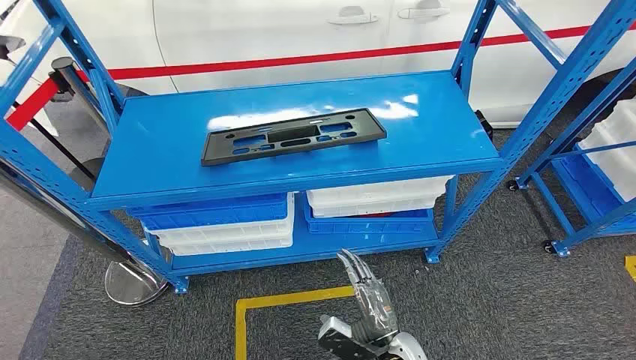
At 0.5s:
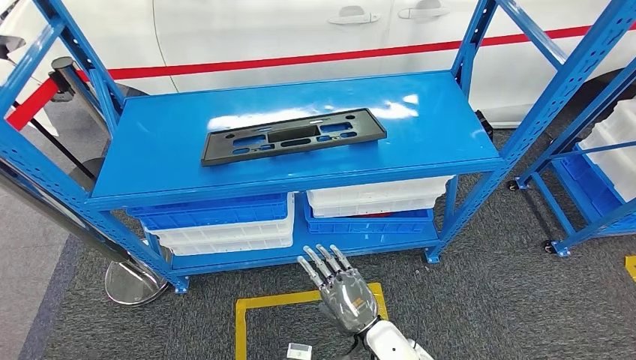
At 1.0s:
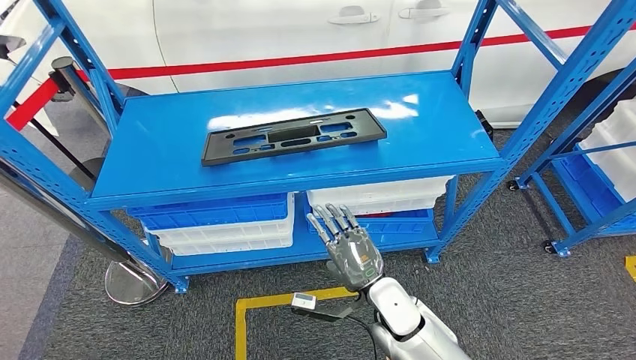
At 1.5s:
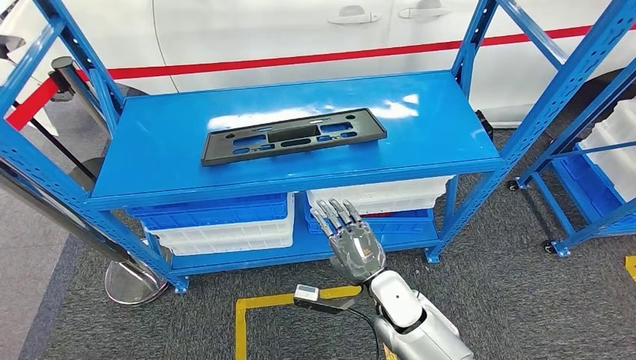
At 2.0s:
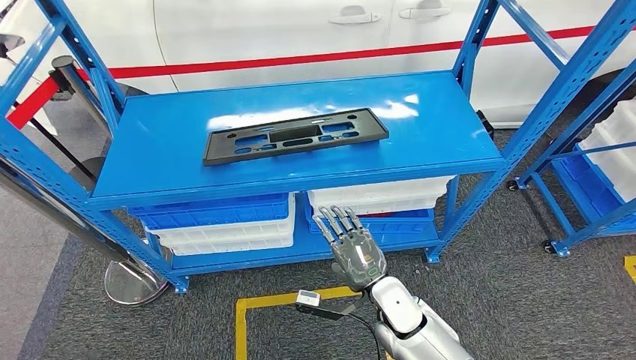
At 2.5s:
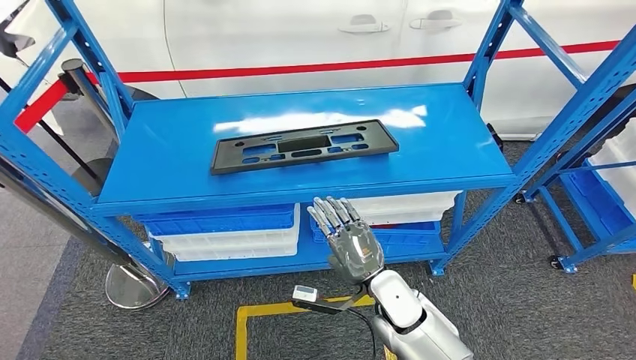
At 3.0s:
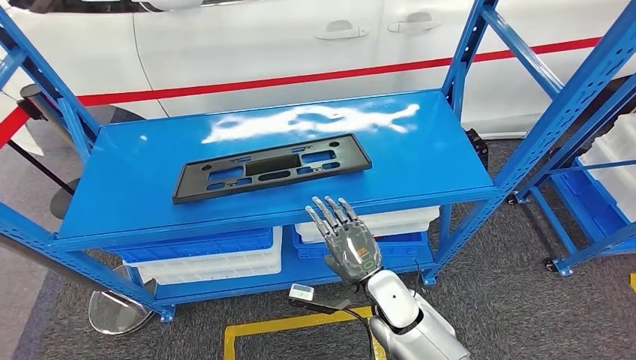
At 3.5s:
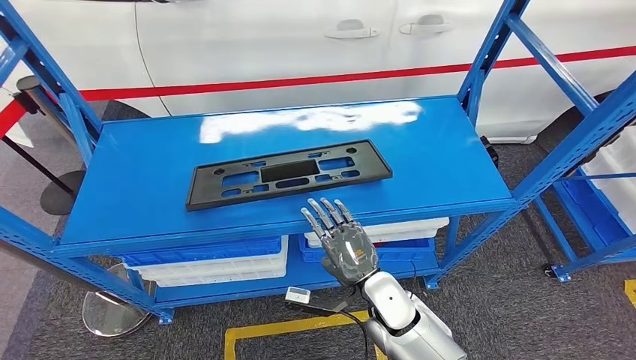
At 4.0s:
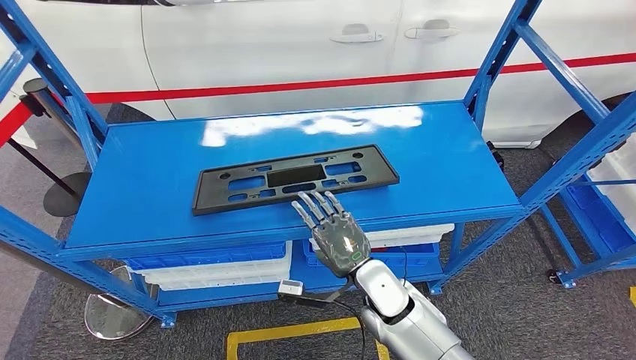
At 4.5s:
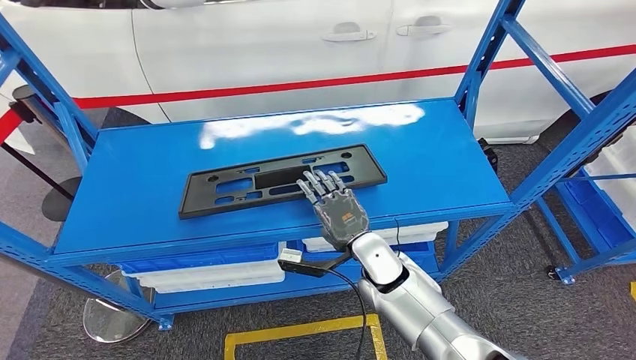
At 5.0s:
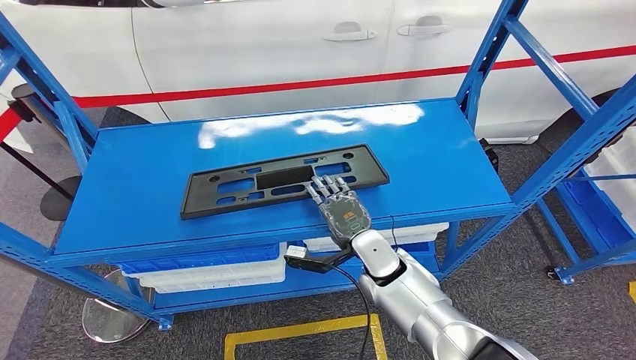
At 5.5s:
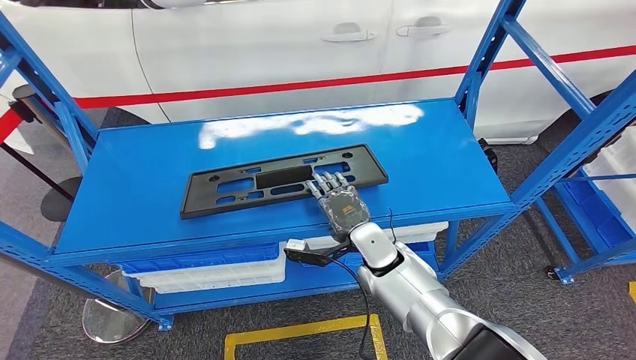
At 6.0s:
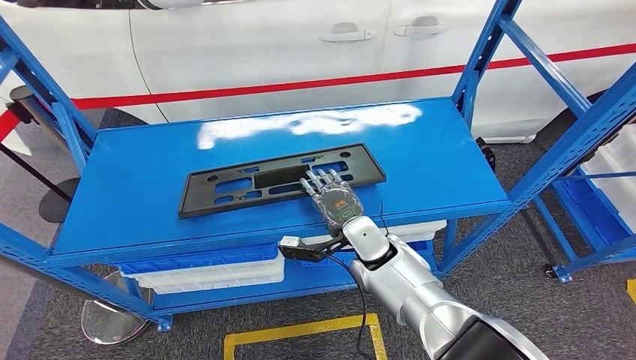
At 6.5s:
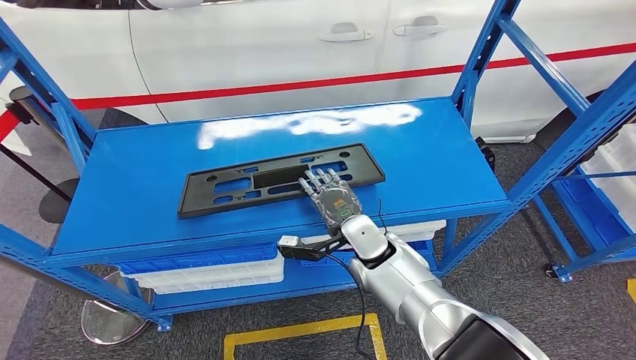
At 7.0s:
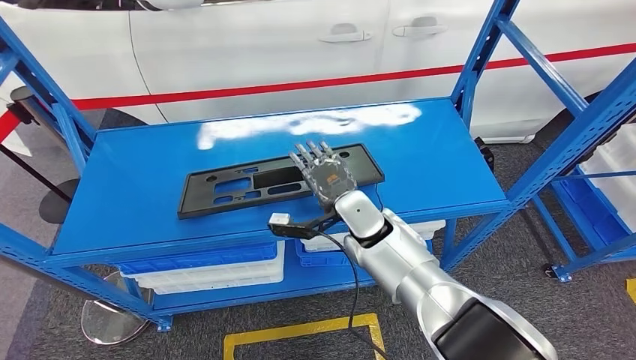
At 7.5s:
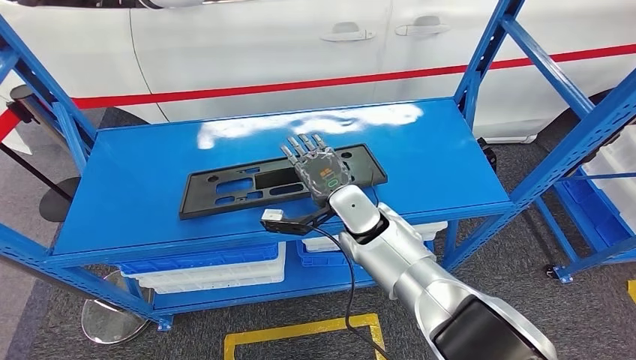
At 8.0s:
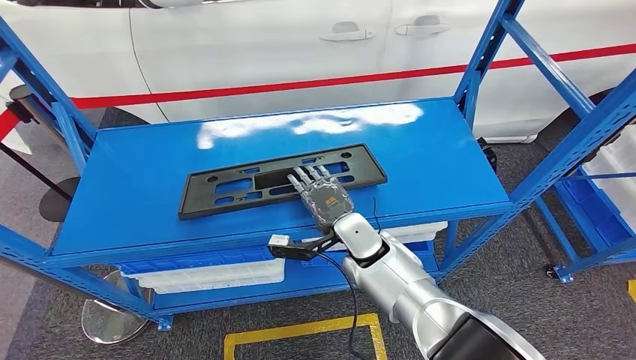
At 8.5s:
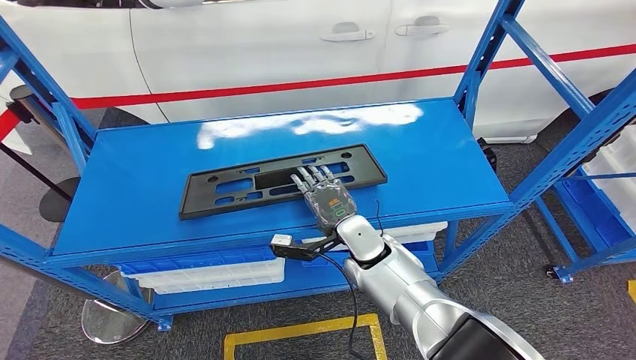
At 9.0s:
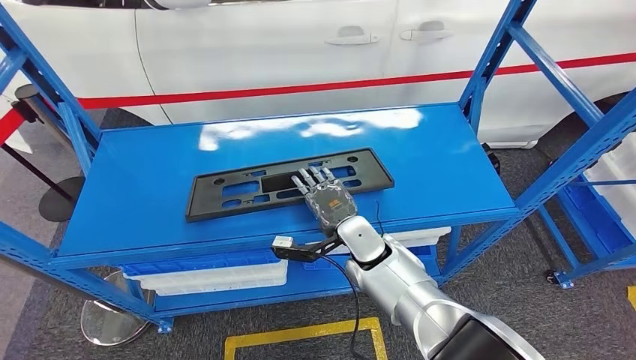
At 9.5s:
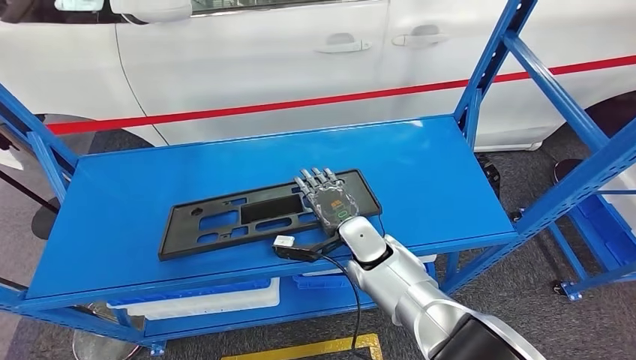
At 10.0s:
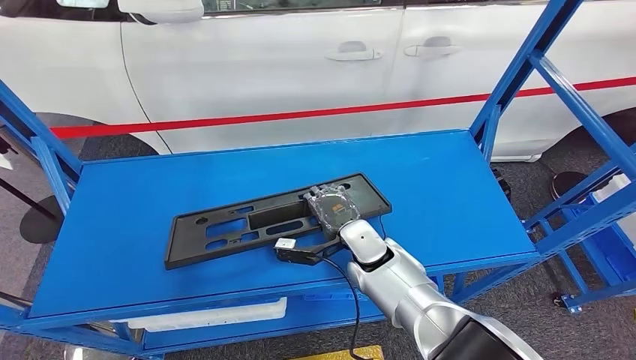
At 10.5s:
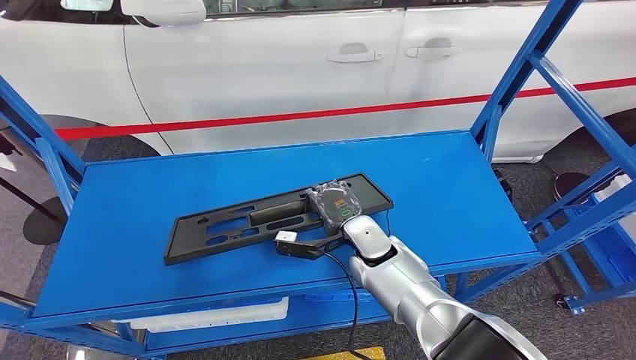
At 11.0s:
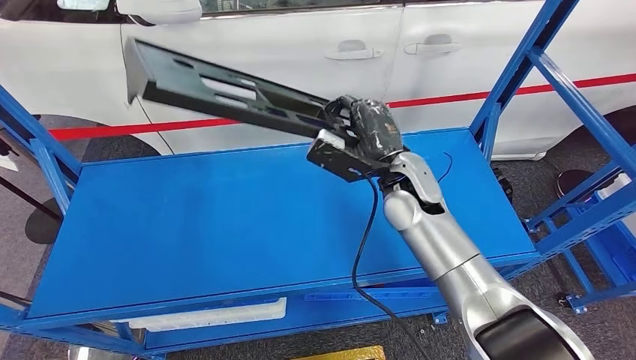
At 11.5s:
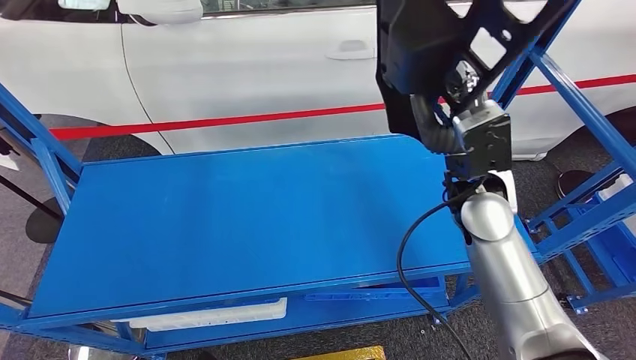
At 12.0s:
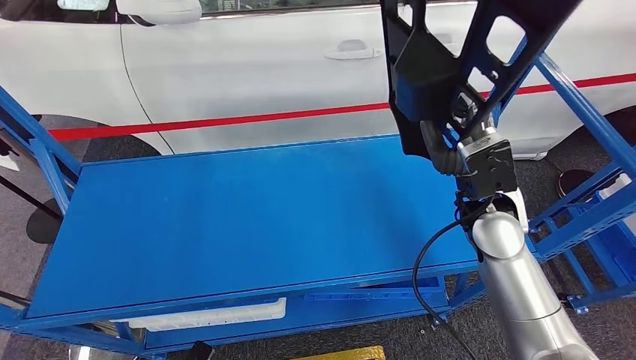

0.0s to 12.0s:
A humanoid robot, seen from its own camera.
Step, 0.0s to 12.0s: Pick up the large material from the shelf.

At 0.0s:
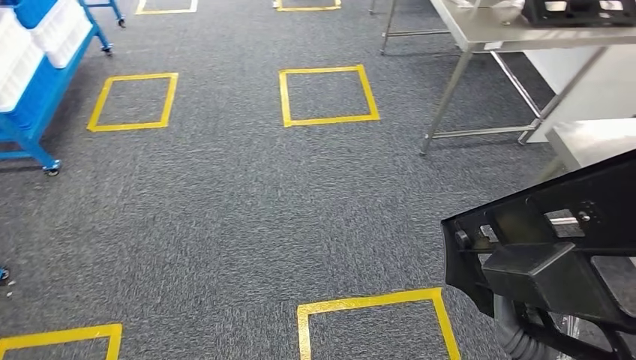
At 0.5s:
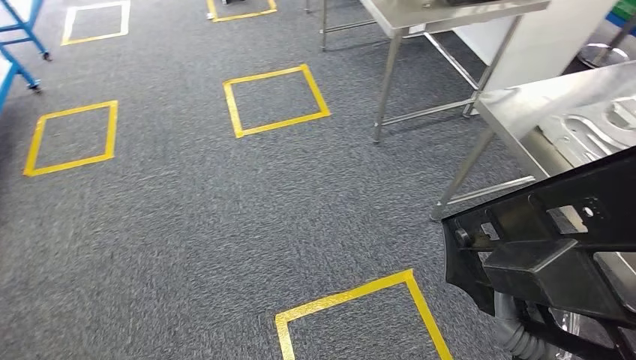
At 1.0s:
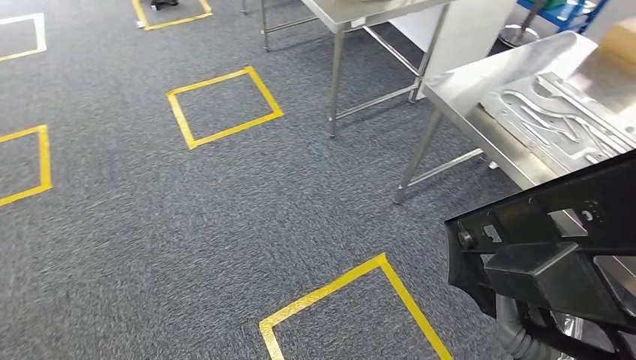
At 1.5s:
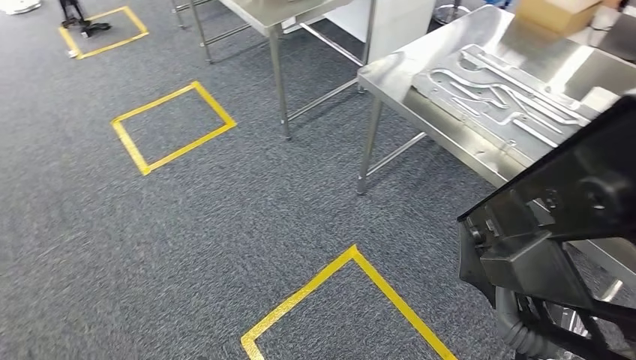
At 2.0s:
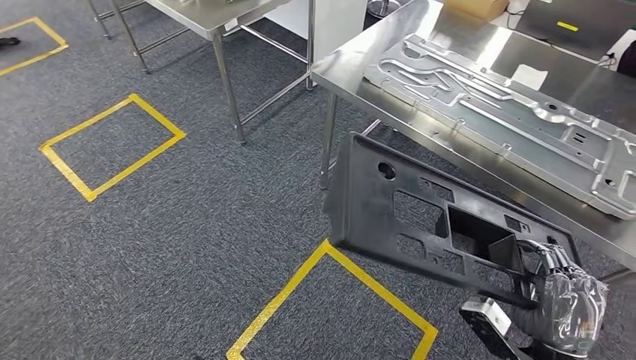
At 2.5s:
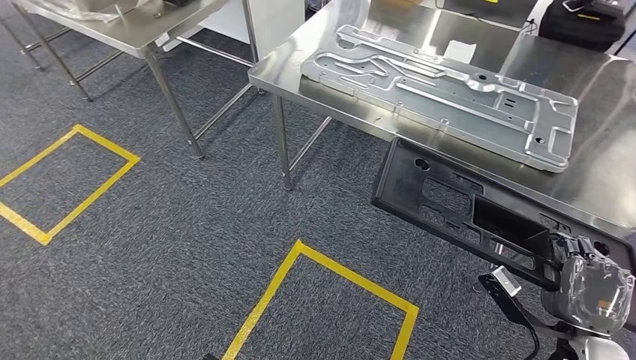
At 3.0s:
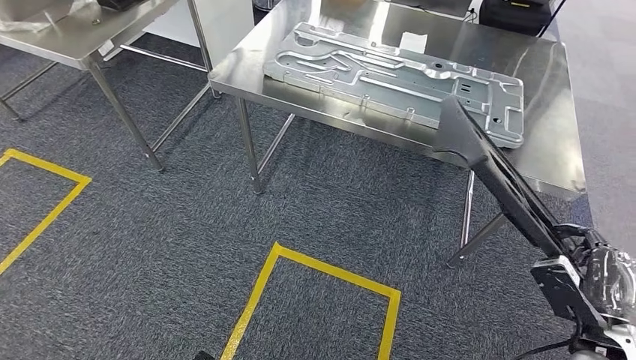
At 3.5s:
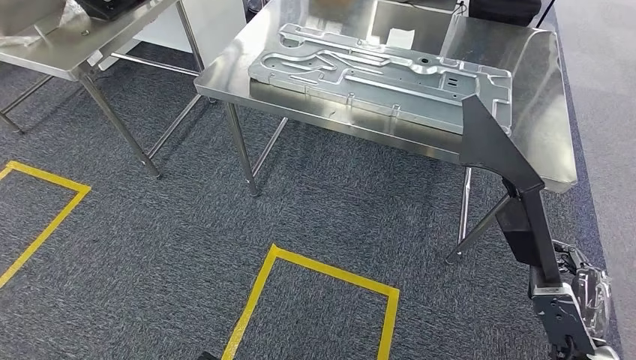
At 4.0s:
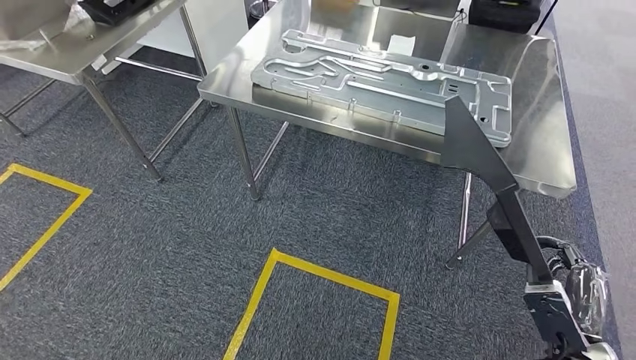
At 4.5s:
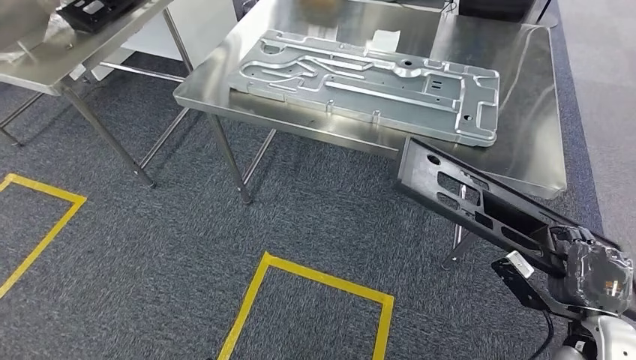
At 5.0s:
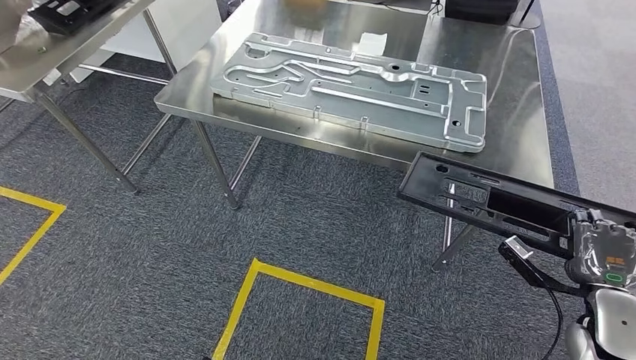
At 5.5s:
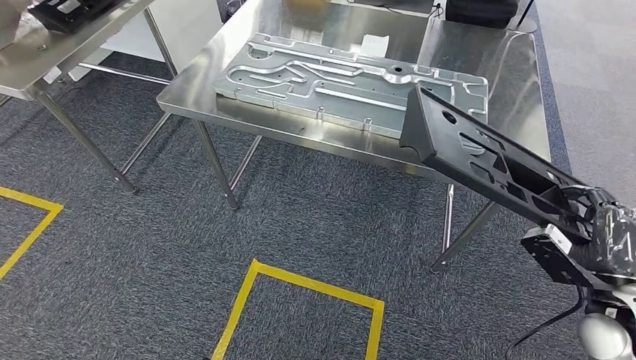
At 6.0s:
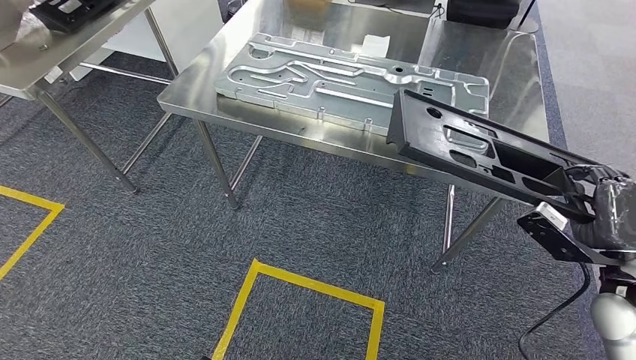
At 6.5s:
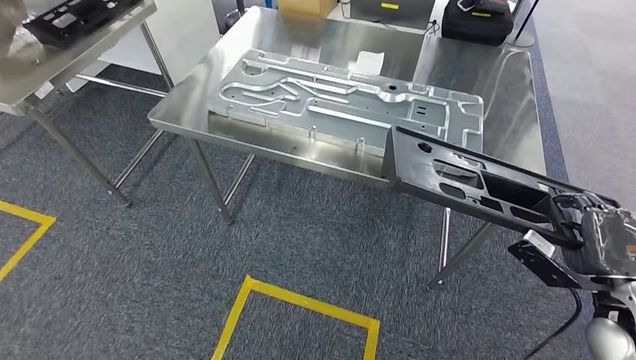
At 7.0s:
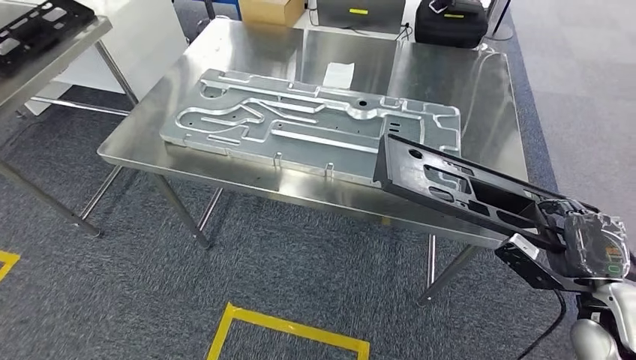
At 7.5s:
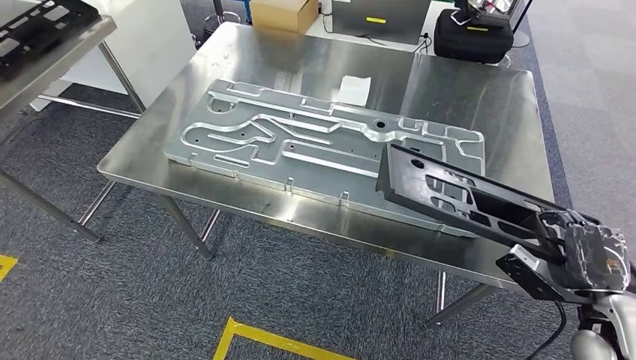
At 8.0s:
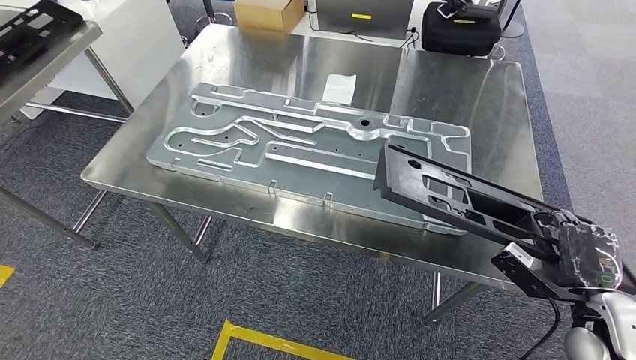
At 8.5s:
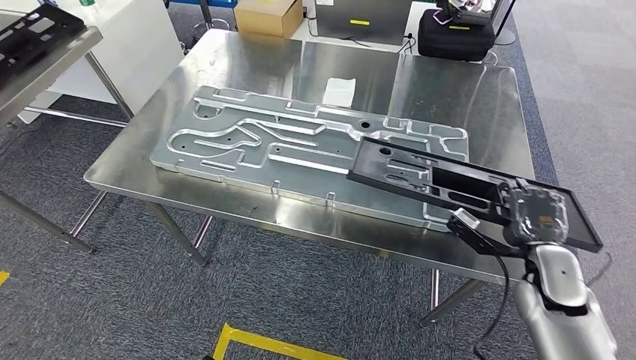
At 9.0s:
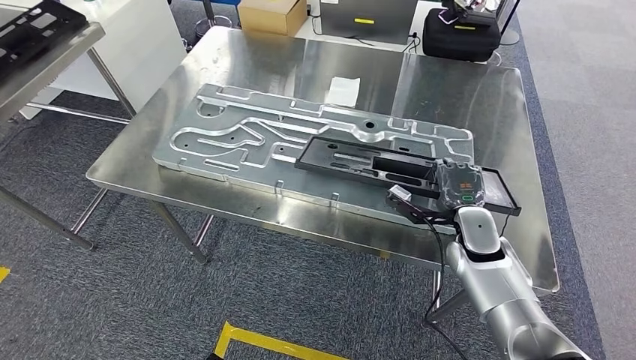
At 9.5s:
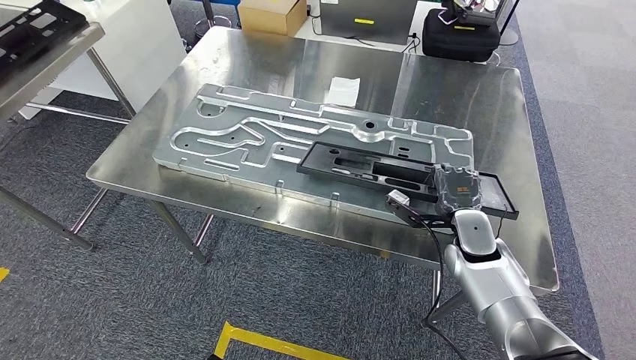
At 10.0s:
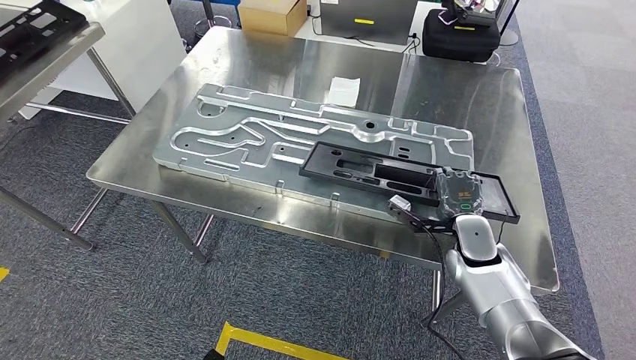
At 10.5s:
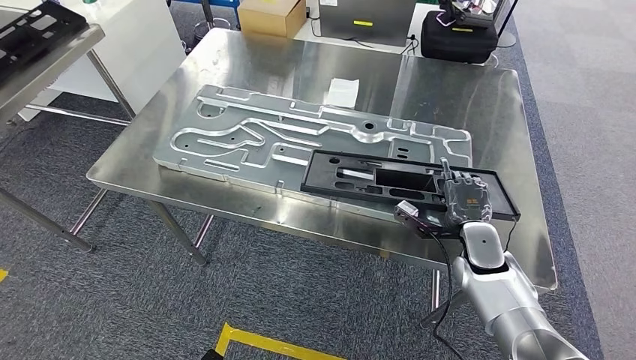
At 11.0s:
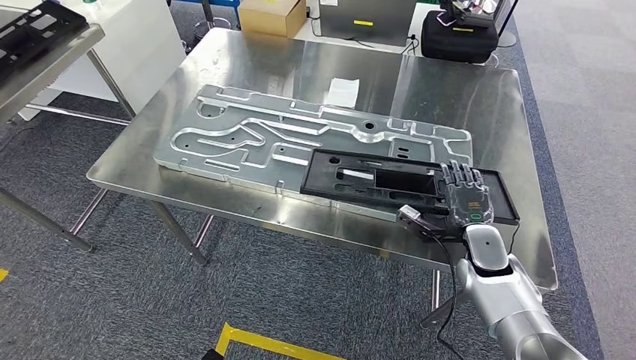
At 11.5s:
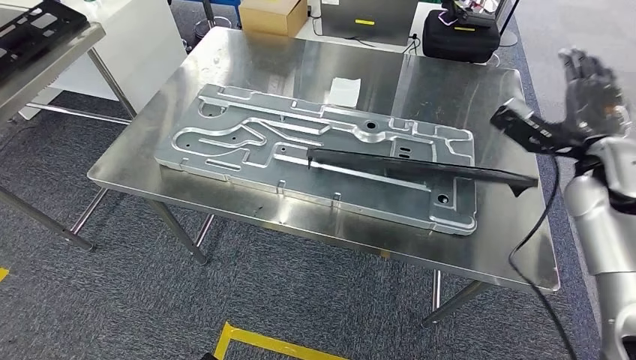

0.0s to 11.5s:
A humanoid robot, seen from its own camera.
Step, 0.0s to 6.0s: Move the large material to the workbench.
9.5s to 11.5s: The right hand goes approximately 20 cm upward and to the right.
